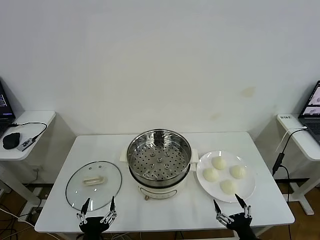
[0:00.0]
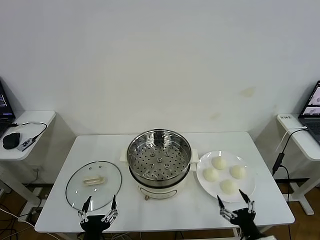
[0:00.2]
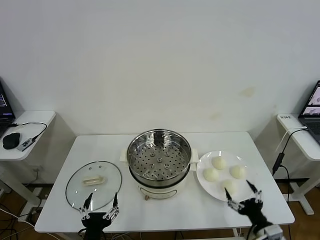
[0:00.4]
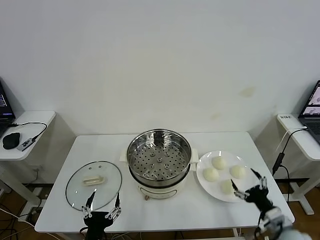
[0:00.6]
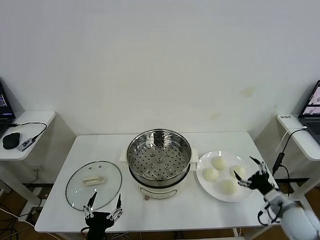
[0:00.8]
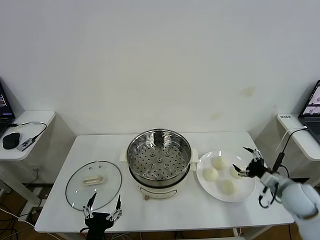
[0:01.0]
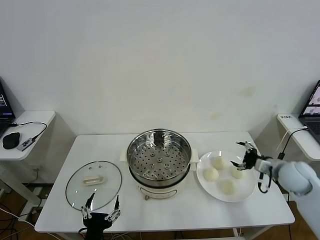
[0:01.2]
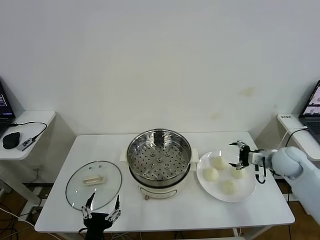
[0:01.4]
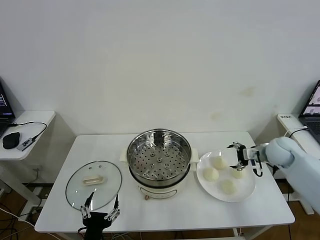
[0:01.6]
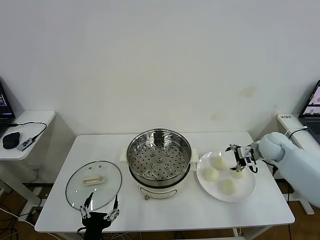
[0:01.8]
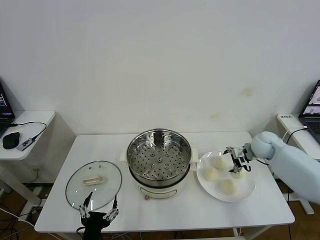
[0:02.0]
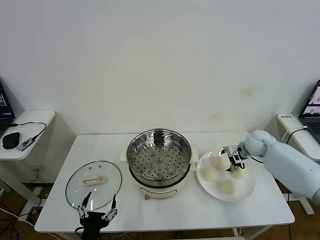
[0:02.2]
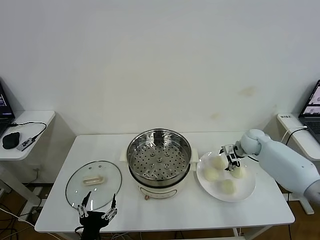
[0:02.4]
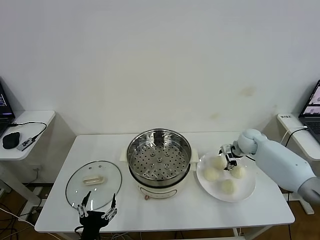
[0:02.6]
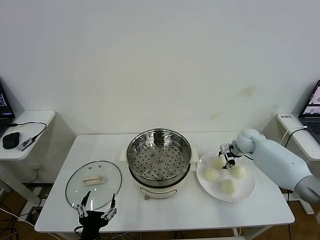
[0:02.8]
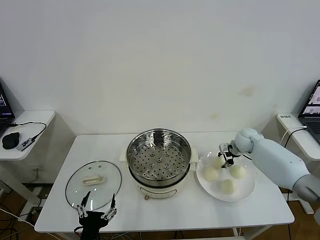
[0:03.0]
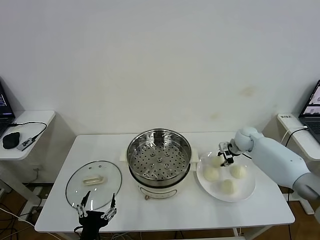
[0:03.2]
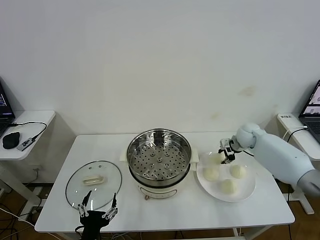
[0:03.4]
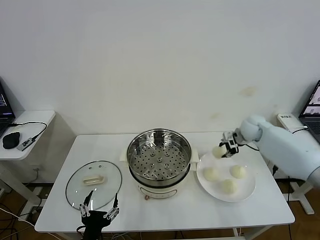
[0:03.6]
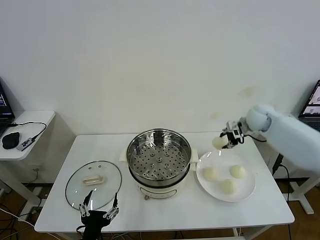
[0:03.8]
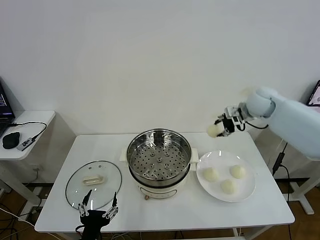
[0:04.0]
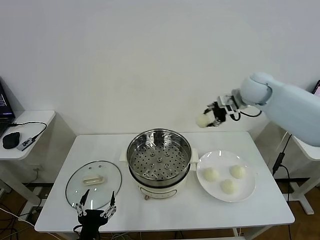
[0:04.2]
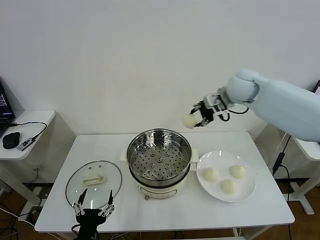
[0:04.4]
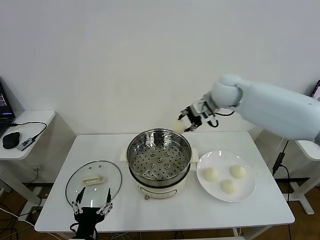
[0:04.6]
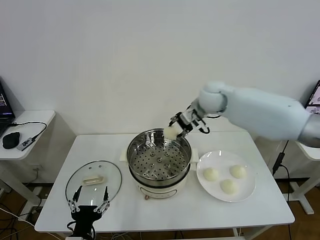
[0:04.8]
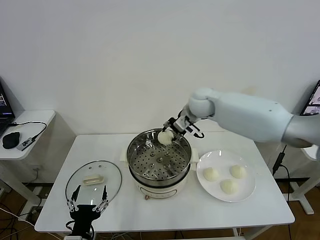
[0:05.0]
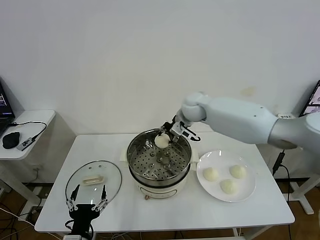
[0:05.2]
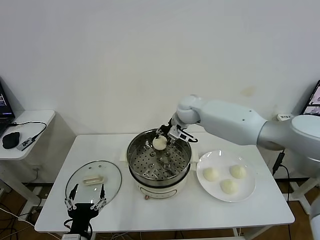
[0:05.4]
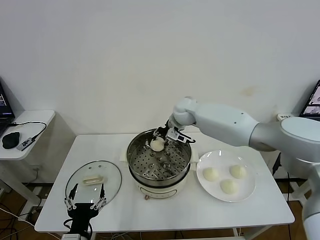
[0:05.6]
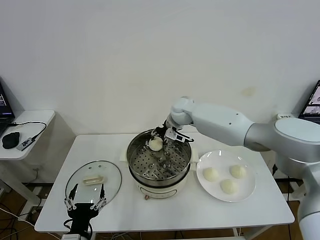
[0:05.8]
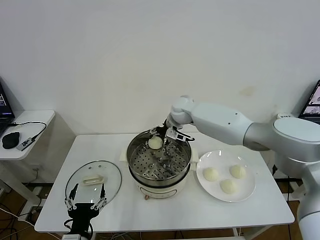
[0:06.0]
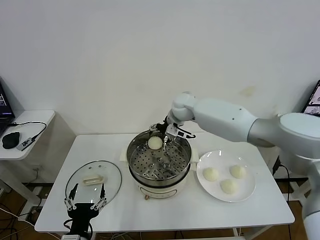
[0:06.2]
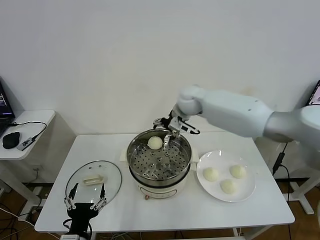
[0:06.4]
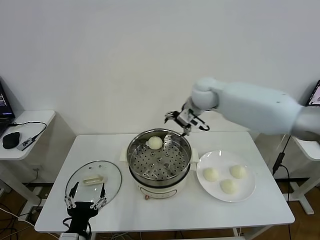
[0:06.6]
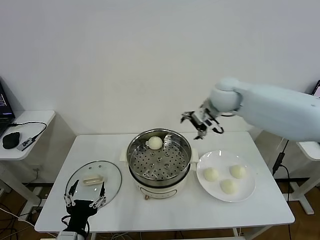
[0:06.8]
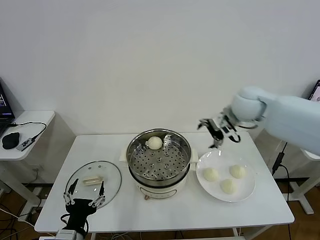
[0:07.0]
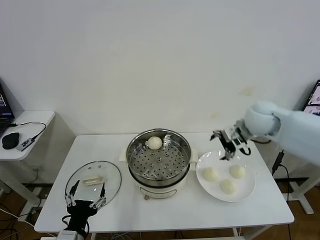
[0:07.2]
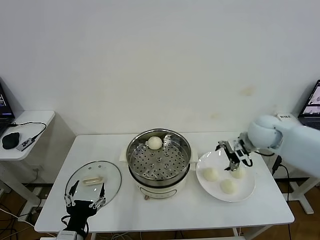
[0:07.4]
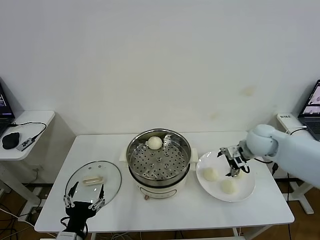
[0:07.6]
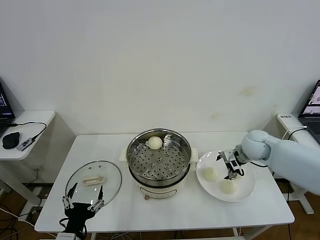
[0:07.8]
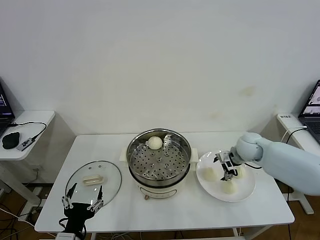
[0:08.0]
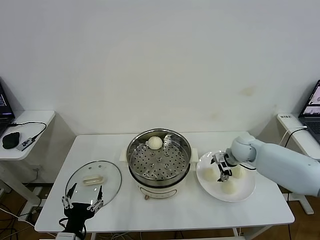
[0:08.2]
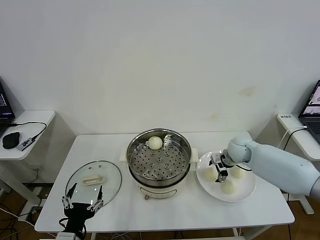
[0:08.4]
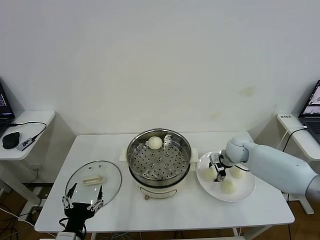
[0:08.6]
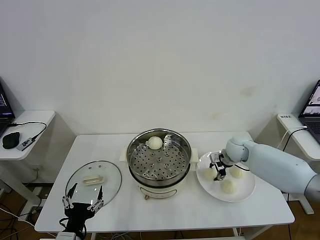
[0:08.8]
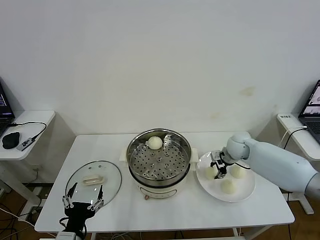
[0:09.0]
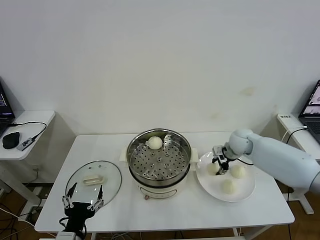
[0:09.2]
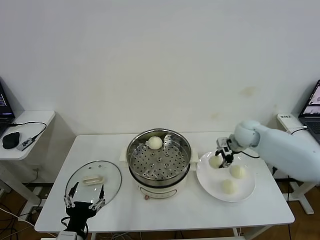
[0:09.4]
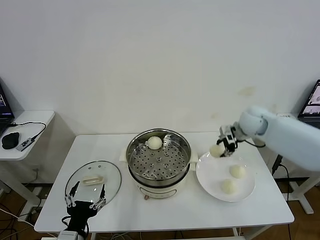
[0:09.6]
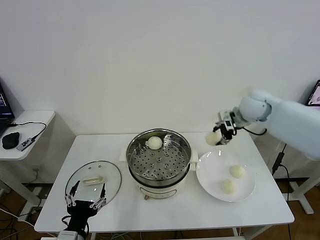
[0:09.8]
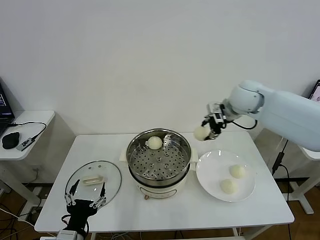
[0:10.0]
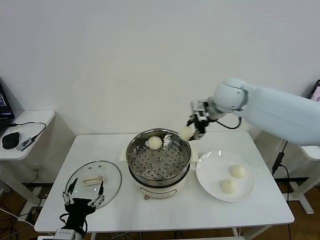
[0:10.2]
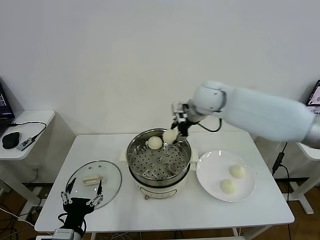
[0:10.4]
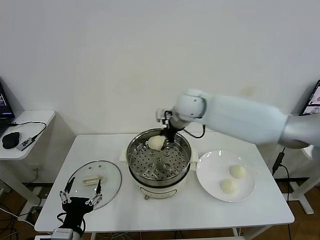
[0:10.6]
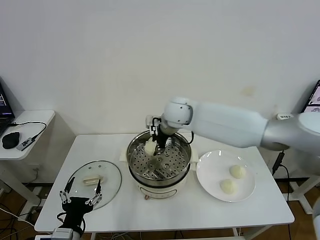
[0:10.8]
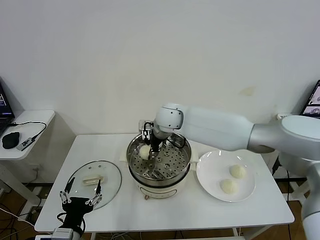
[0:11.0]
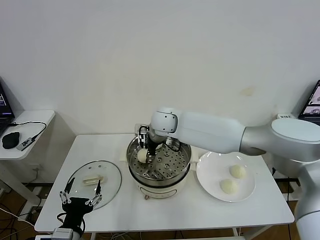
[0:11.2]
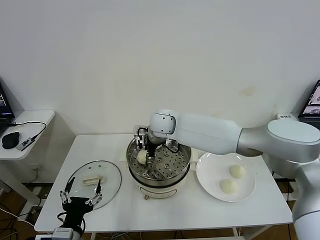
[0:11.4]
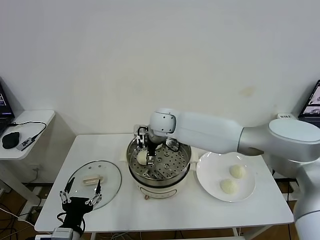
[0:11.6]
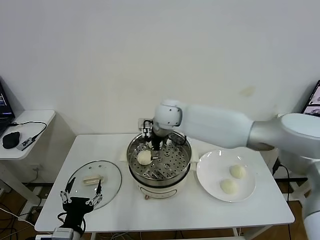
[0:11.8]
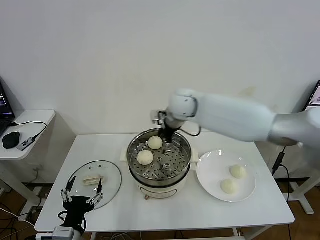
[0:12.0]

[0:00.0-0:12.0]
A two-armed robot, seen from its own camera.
Task of the whole recording: take steamed baozi put them in steamer then cover it.
Step, 0.0 to 3.0 s: Grasp the baozi in the plate with right gripper.
Step, 3.2 to 6.0 s: Place the baozi on the steamer with right gripper.
Step, 6.2 to 9.0 s: Grasp the baozi in the plate with right gripper.
Step, 9.2 to 11.6 s: Place the baozi on the steamer with right gripper.
1.6 to 3.0 s: The right gripper travels forward, to the left and downward by some 10 cm, and closes up.
3.0 to 4.4 s: The right gripper is displaced upward and to the left by about 25 cm.
4.4 to 6.0 s: The right gripper shifts about 15 cm to the left and downward, and opens up.
6.0 to 7.6 s: The right gripper is displaced to the right and backward by some 25 cm.
7.6 to 9.0 s: The right gripper goes about 10 cm downward and forward, and closes its fingers.
9.0 to 10.4 s: The right gripper moves upward and to the left, about 25 cm.
10.4 to 12.0 s: The right gripper travels to the left and back again, roughly 10 cm each way, and opens up.

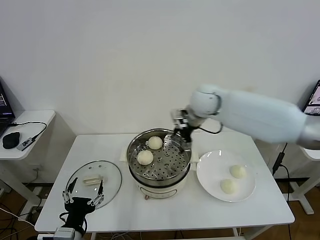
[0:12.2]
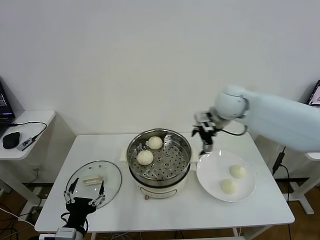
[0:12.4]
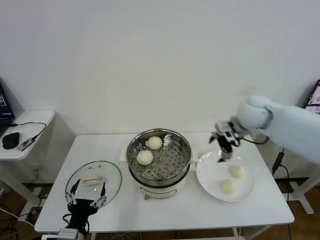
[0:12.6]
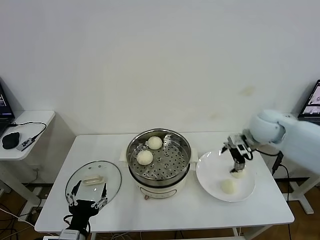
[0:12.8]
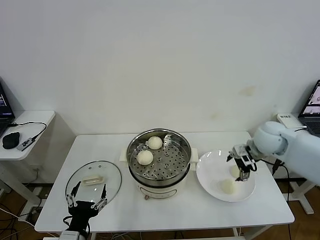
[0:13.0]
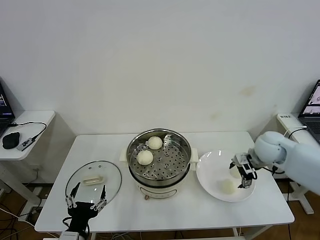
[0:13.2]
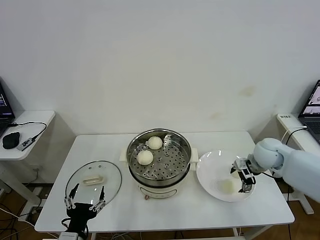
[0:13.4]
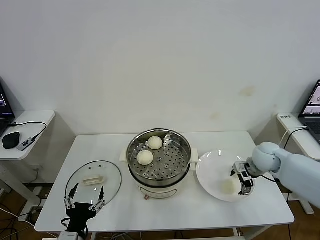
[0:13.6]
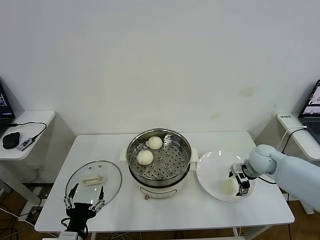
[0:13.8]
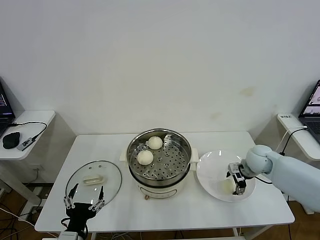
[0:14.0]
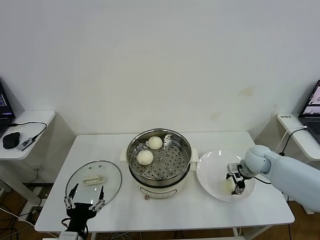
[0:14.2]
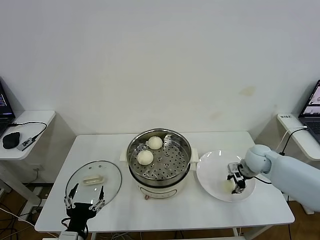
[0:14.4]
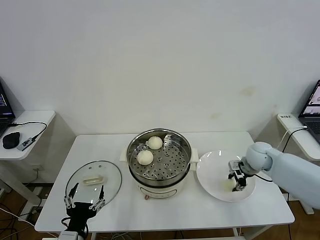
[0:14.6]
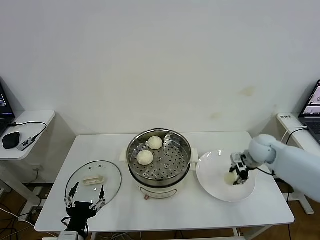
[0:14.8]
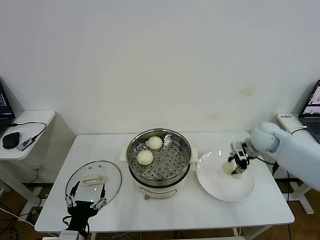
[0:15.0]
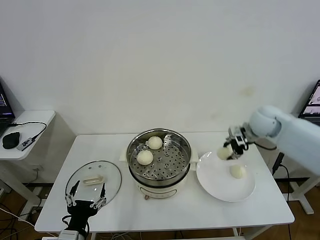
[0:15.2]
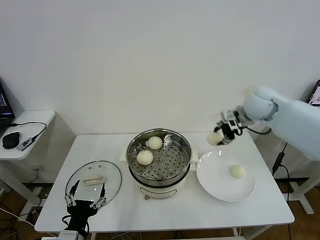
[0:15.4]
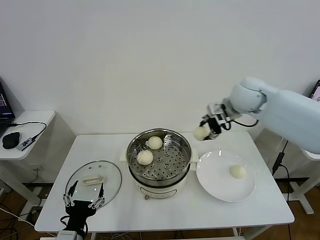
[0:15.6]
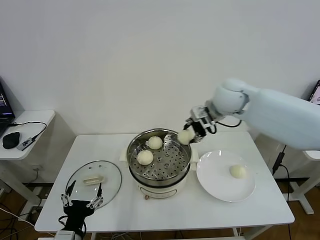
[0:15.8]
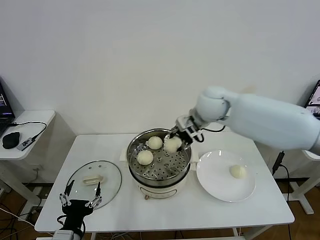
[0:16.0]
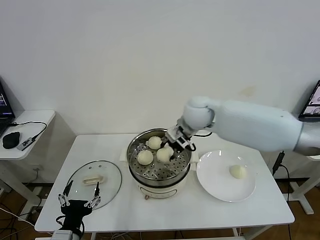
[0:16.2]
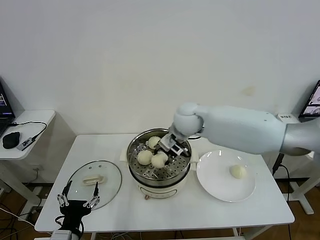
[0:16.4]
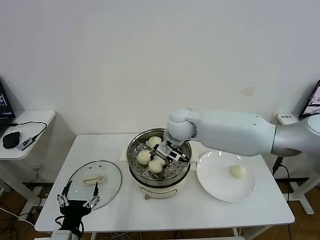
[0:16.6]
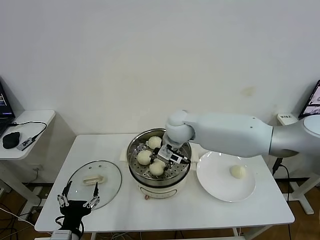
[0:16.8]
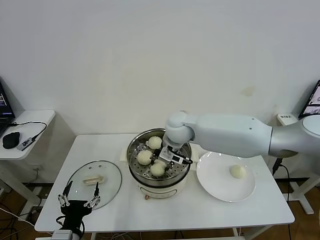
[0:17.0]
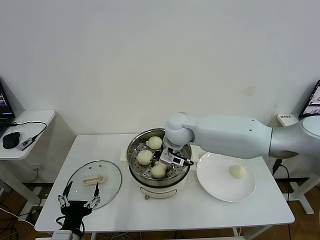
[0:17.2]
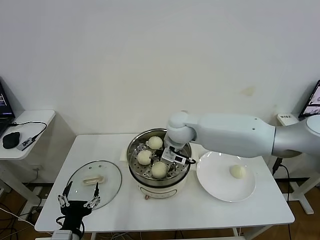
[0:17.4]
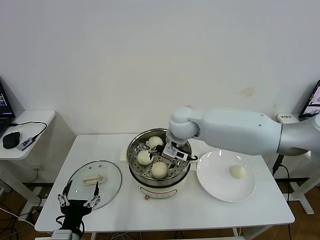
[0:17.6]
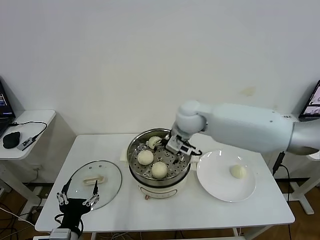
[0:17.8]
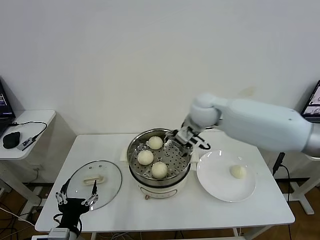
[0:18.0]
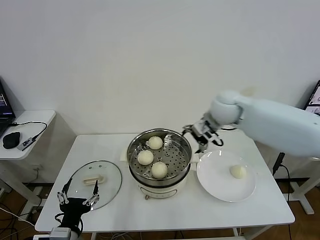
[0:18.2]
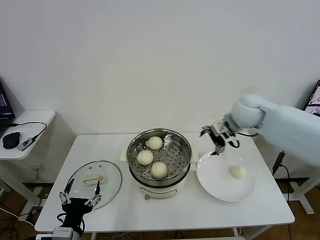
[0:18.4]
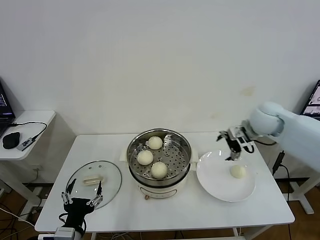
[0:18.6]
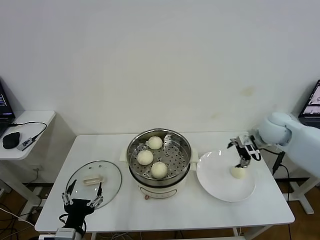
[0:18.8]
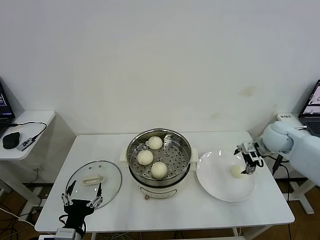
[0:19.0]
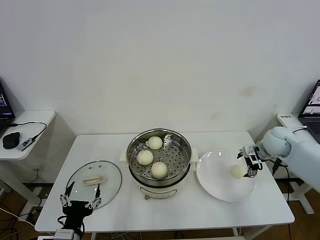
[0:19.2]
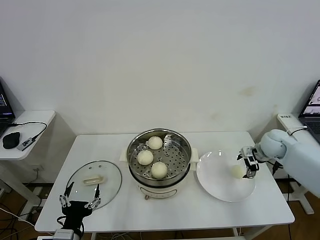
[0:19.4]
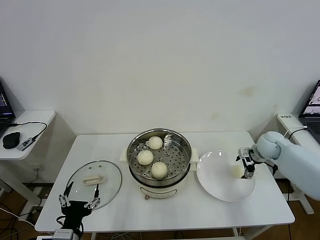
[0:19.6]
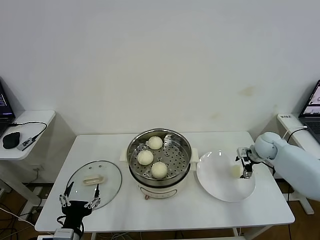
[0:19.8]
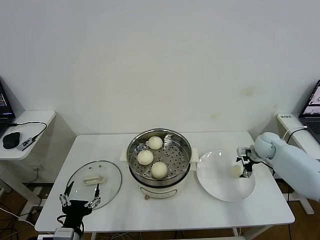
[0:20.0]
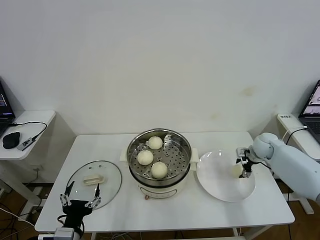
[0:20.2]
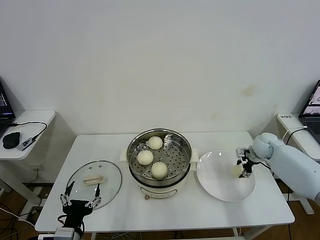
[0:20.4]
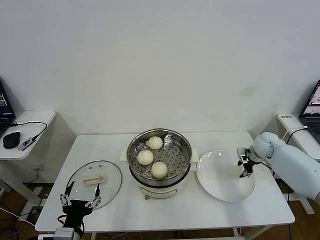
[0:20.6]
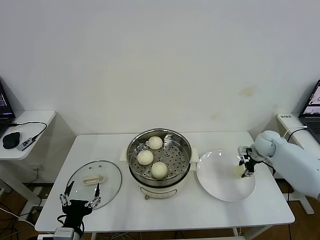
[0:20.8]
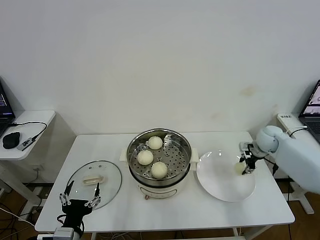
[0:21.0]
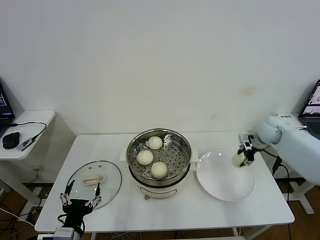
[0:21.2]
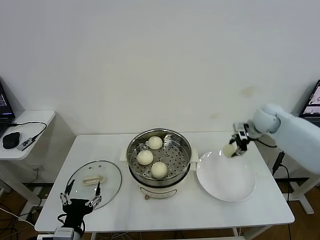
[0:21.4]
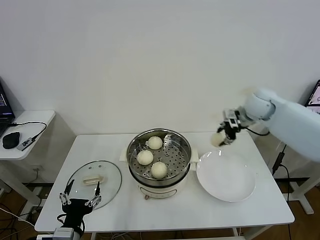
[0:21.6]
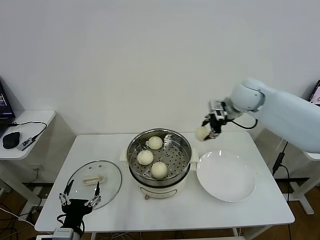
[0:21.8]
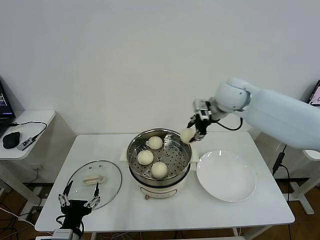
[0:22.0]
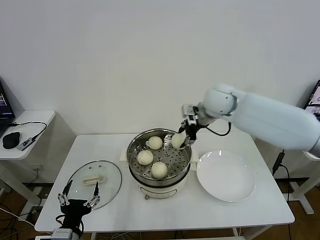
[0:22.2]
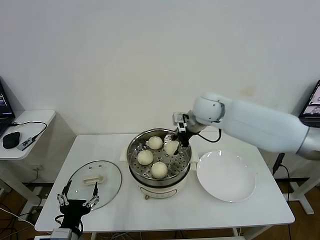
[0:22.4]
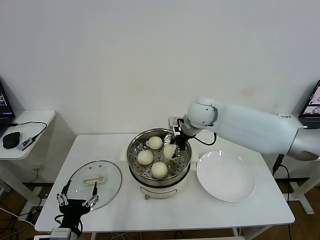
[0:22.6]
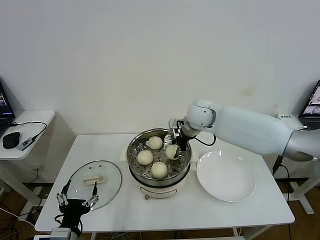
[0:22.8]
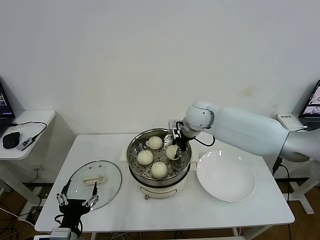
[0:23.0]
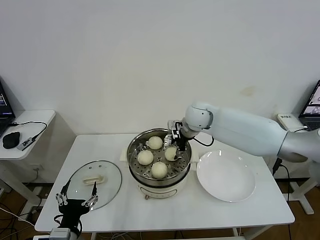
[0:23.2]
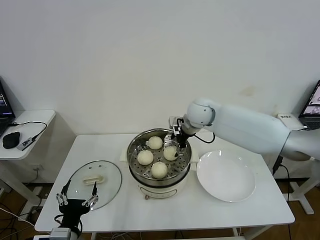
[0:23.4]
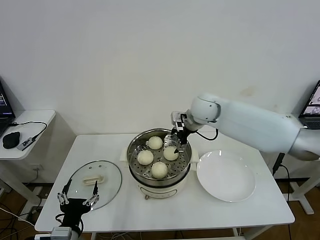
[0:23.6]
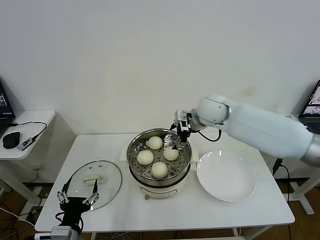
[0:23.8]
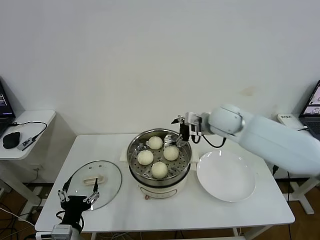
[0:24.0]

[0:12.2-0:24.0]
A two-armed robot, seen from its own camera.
Task of the whole recording: take steamed baozi put them in steamer then cover it.
Step, 12.2 to 14.4 s: Grasp the baozi in the plate with right gripper.
Step, 14.6 to 17.4 s: Place the baozi on the steamer with right gripper.
Step, 17.6 to 20.6 s: Grasp the baozi in the plate with right gripper.
Step, 20.8 to 23.2 s: Place the baozi on the steamer with right gripper.
12.2 to 13.6 s: The right gripper goes some 25 cm to the right and downward.
13.6 to 15.2 s: The right gripper travels upward and forward by about 15 cm, and closes up.
15.2 to 16.6 s: The right gripper shifts about 25 cm to the left.
16.6 to 18.2 s: The right gripper is displaced to the right by some 15 cm, and opens its fingers.
18.2 to 19.6 s: The right gripper shifts about 25 cm to the right and downward.
19.6 to 21.0 s: The right gripper closes up.
21.0 to 22.6 s: The right gripper shifts some 30 cm to the left and upward.
22.6 to 24.0 s: The right gripper travels to the right by approximately 5 cm, and opens its fingers.
